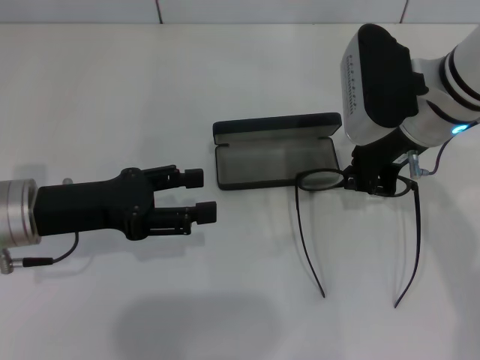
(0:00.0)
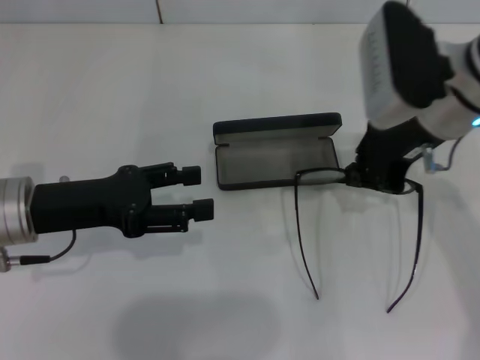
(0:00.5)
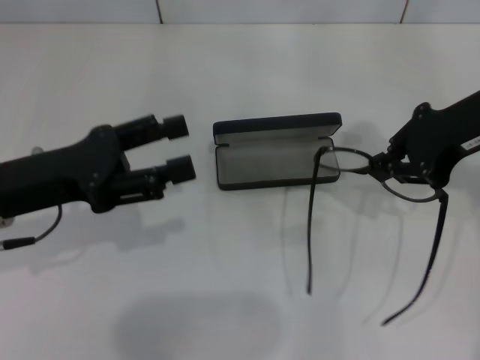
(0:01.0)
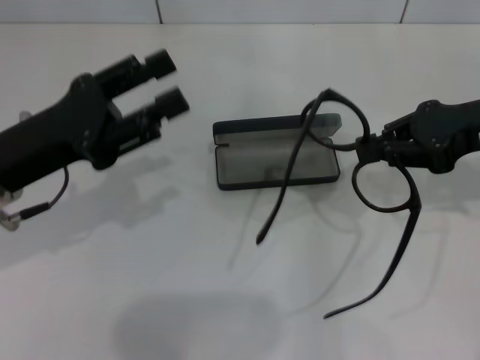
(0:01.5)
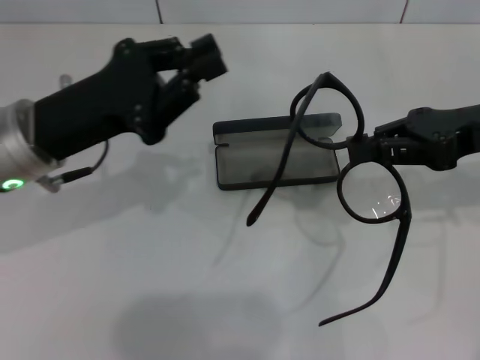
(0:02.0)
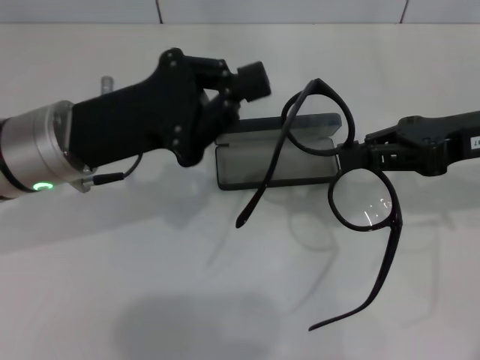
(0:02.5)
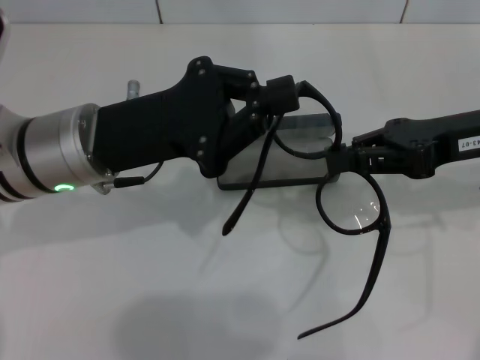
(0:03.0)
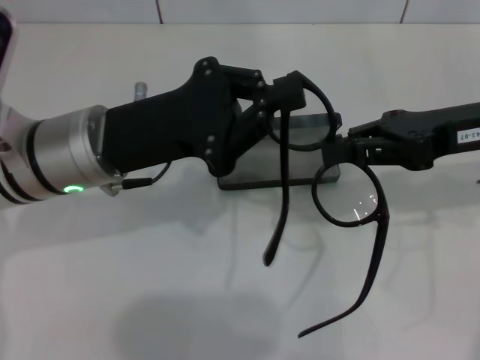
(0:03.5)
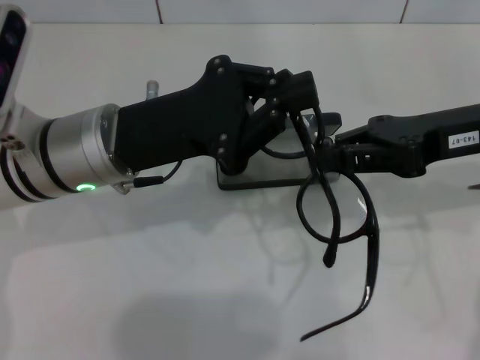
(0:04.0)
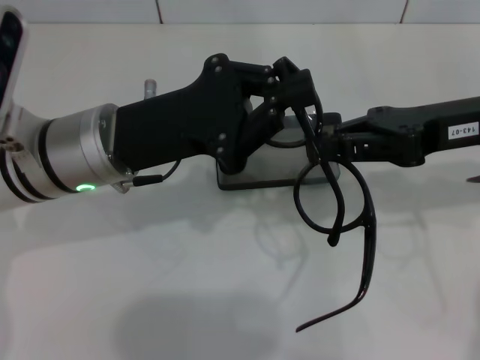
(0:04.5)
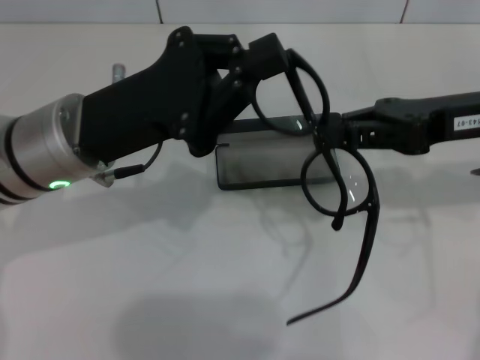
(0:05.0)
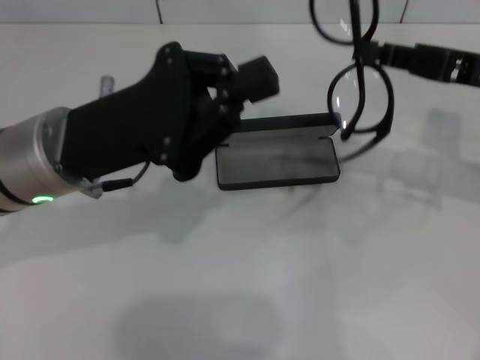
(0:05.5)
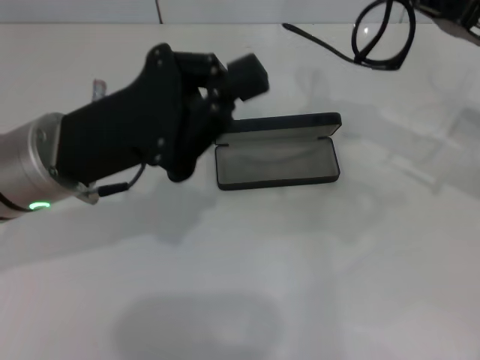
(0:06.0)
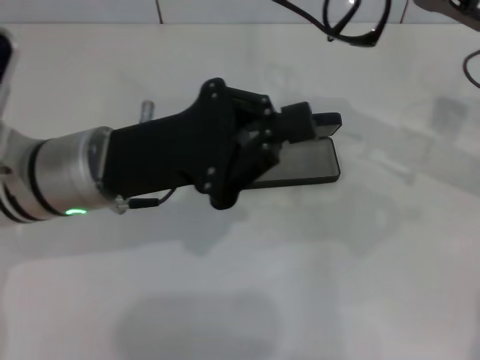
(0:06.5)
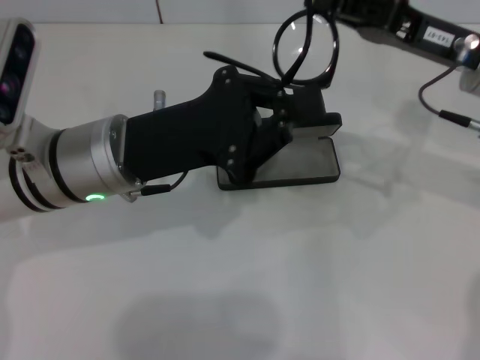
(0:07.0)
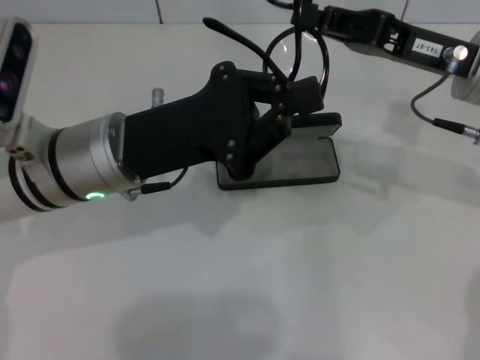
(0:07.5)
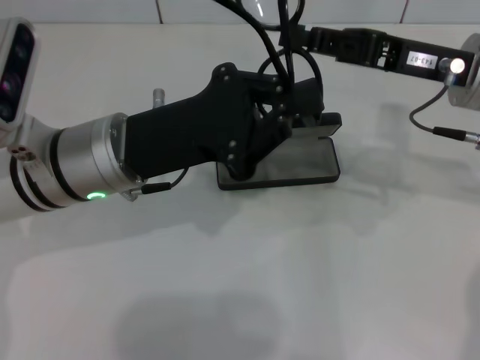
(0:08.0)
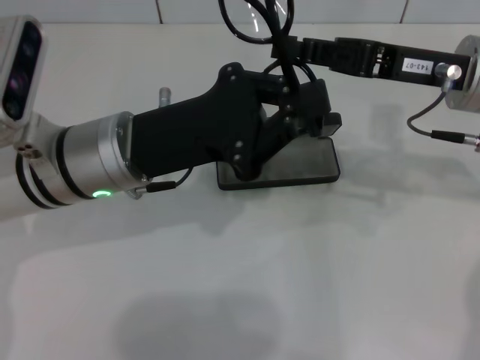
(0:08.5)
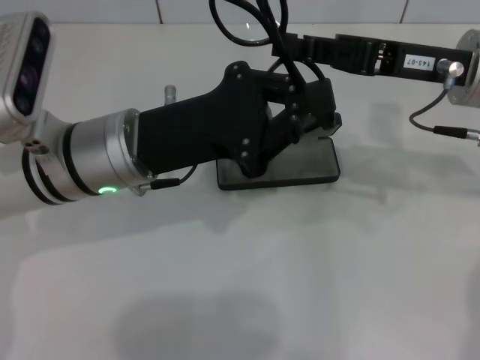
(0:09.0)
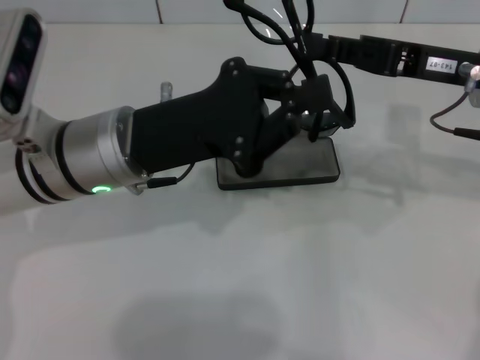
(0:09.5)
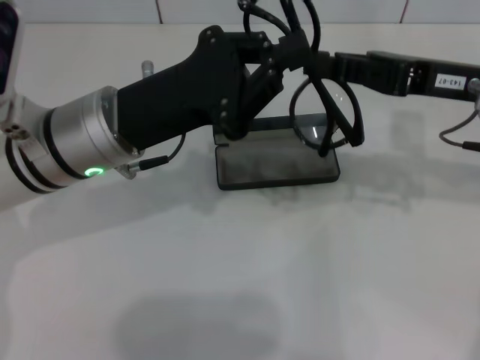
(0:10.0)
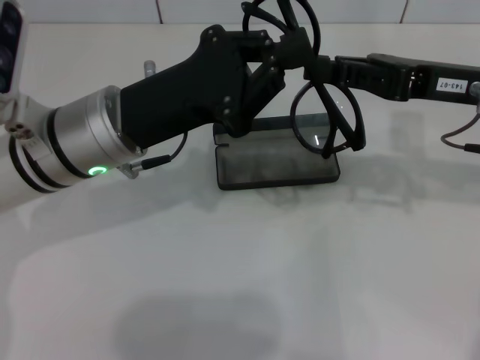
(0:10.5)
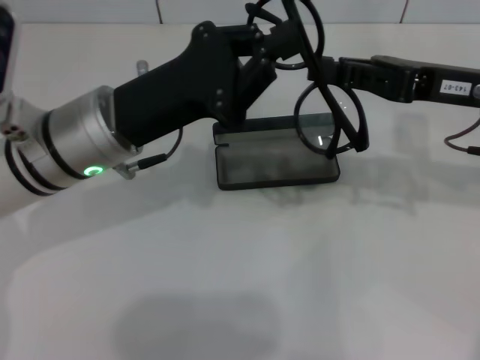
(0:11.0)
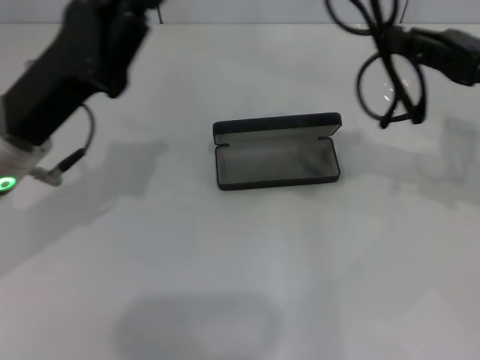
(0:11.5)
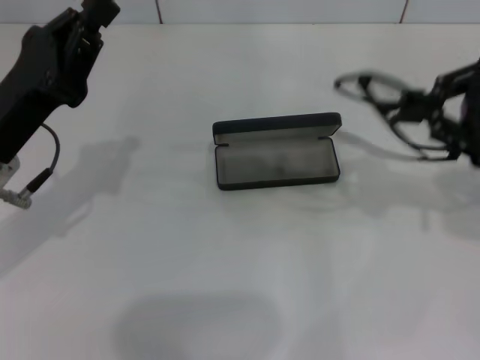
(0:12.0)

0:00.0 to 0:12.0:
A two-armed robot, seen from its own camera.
Step, 0:00.0 to 0:10.5: Fold the frame with your left hand.
0:00.0 to 0:02.0: The right gripper goes approximately 10 cm to the right, while the left gripper moves roughly 5 cm, and closes.
0:02.0 to 0:04.0: The left gripper moves to the right, about 5 cm, and closes its fingers.
0:04.0 to 0:06.0: The right gripper changes place by approximately 5 cm.
0:06.0 to 0:08.0: The right gripper travels to the left by some 5 cm.
0:10.0 to 0:12.0: The right gripper heads to the right, covering roughly 10 cm; the left gripper travels to the left by about 10 cm.

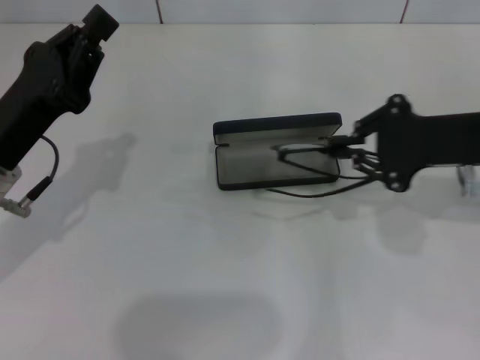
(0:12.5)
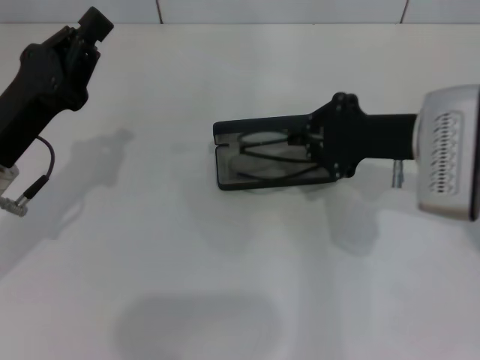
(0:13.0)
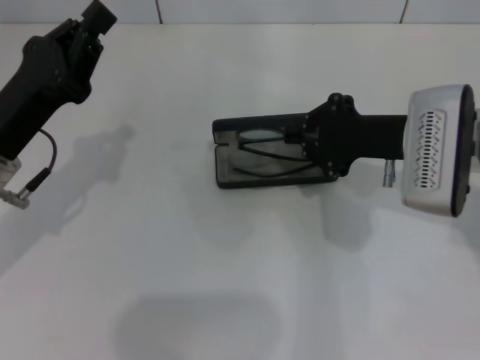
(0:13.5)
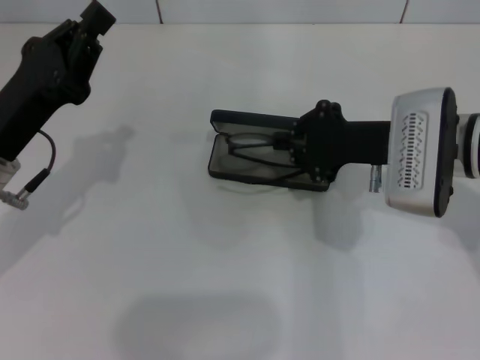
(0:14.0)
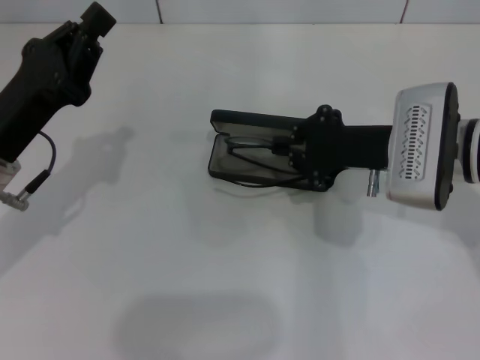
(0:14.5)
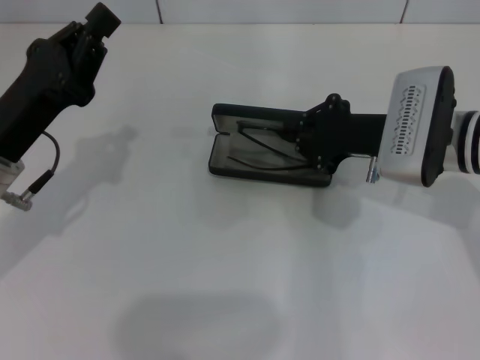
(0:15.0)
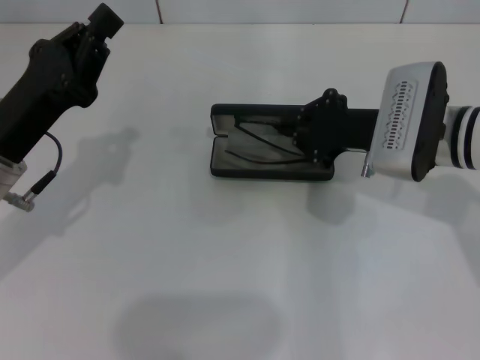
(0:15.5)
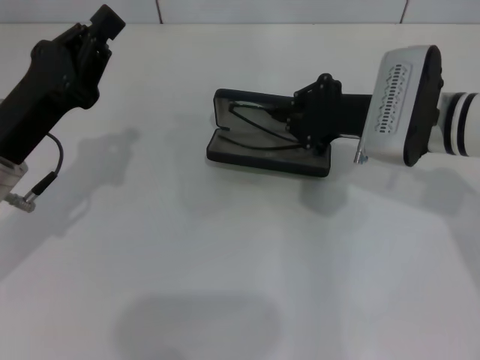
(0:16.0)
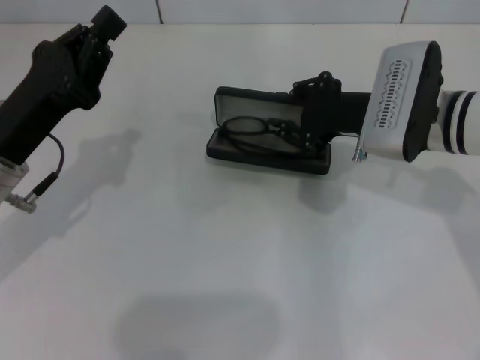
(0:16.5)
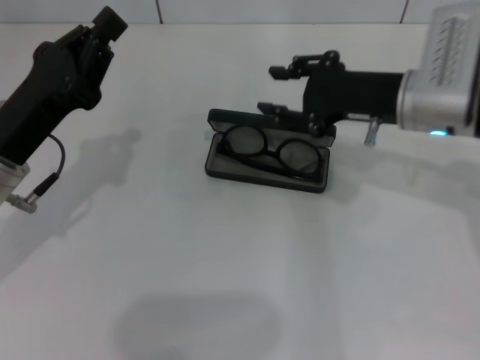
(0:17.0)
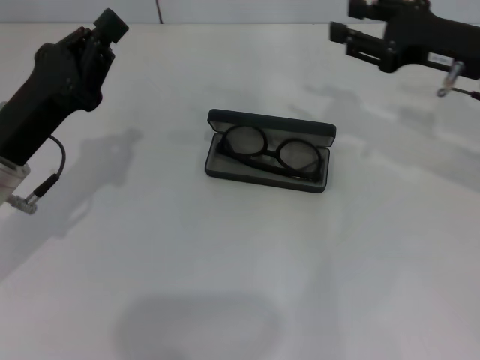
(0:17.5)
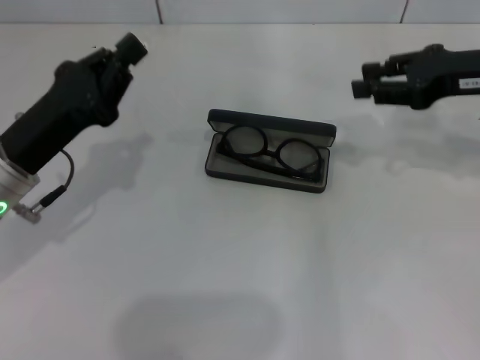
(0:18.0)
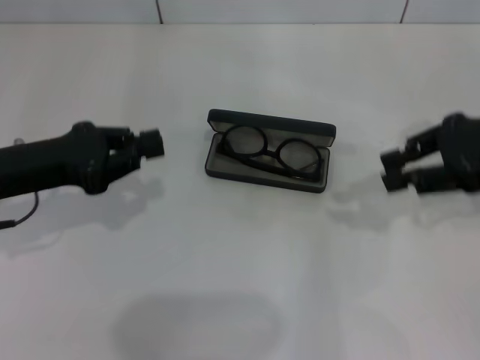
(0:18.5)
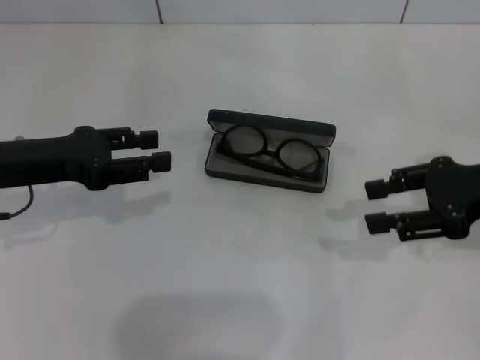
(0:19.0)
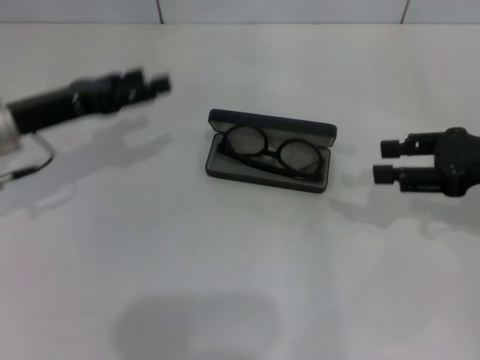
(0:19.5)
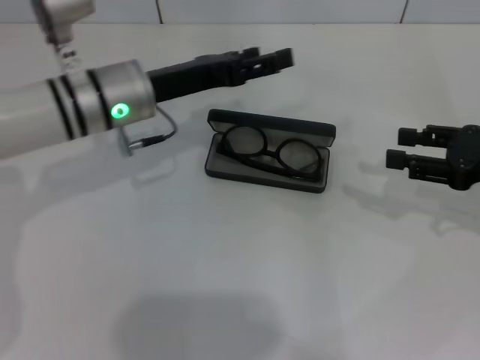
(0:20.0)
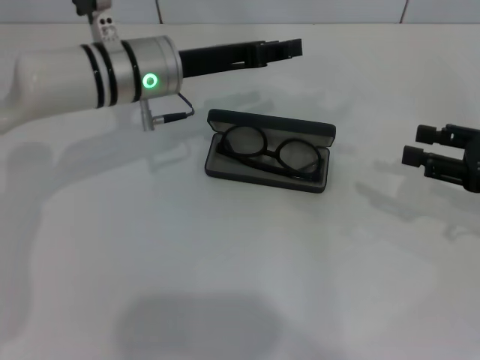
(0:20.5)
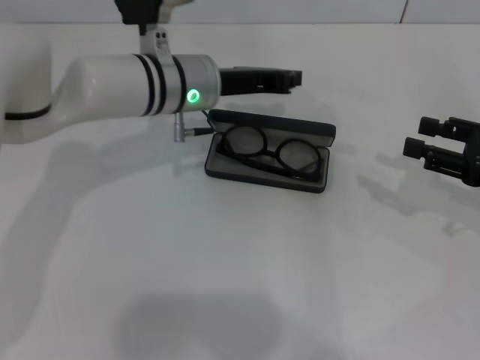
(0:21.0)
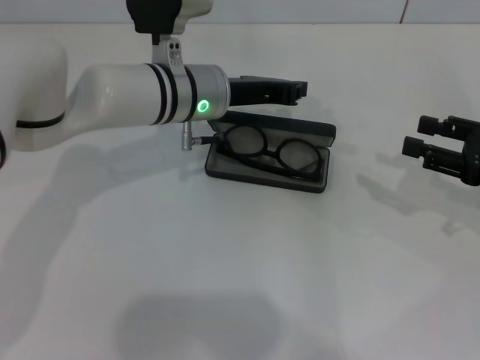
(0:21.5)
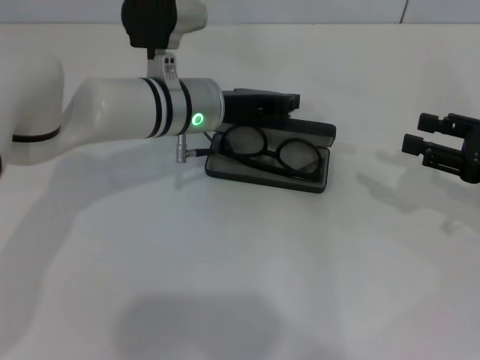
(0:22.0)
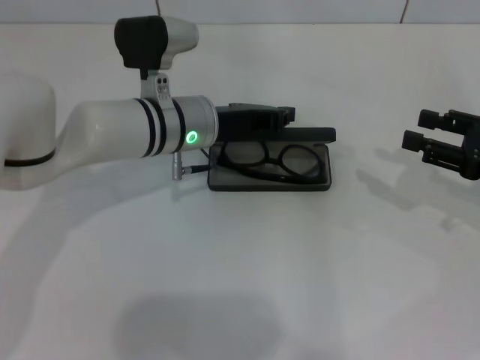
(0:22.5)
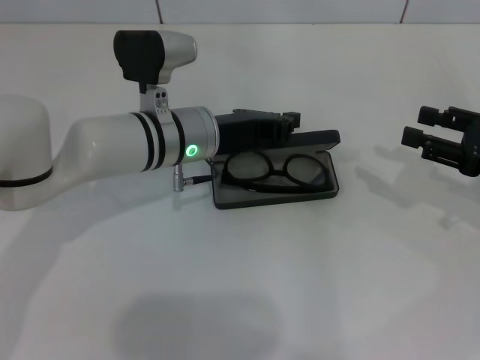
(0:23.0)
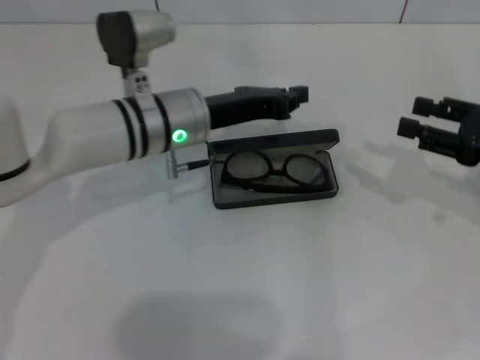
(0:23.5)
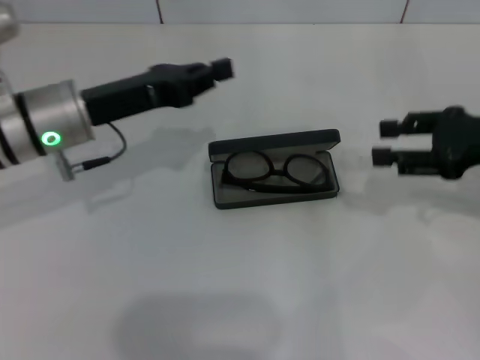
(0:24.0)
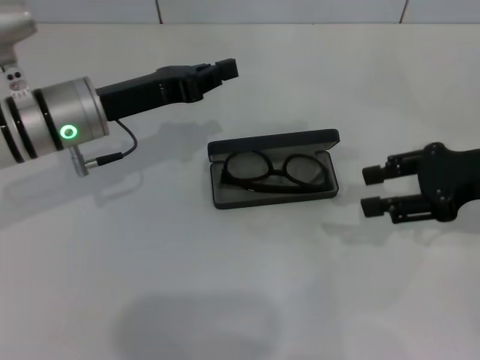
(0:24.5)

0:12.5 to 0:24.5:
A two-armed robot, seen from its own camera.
Step, 0:12.5 to 0:16.5: Put the glasses into the case with your right hand.
0:12.5 to 0:14.5: The right gripper travels to the left and downward by approximately 10 cm.
0:14.5 to 0:16.5: The grippers stay close to where they were, moving slightly.
0:16.5 to 0:18.5: The right gripper goes about 15 cm to the right and upward.
0:18.5 to 0:20.5: The right gripper shifts roughly 10 cm downward, while the left gripper shifts approximately 20 cm to the right and forward, and opens.
0:20.5 to 0:22.5: The left gripper moves about 5 cm, and closes.
0:22.5 to 0:24.5: The right gripper moves roughly 5 cm, while the left gripper moves to the left, approximately 10 cm.

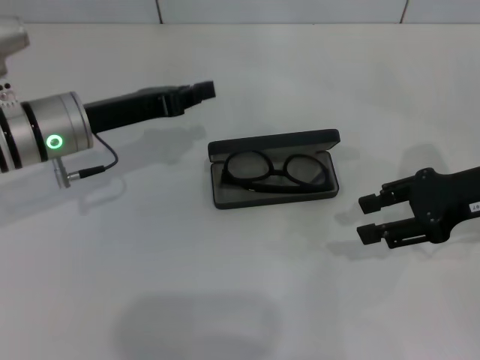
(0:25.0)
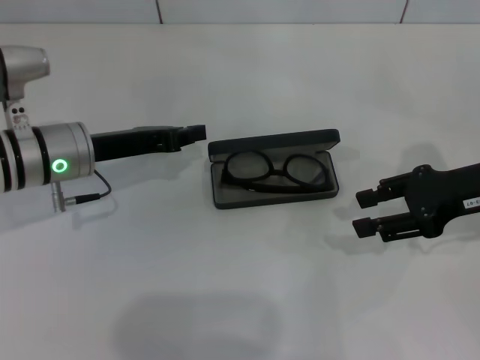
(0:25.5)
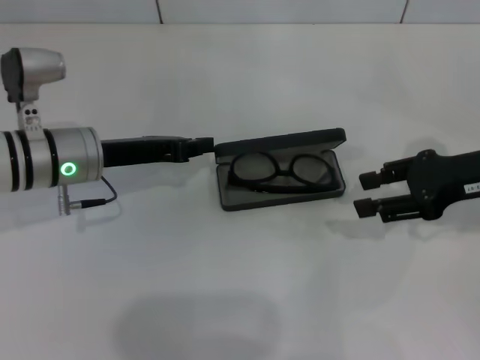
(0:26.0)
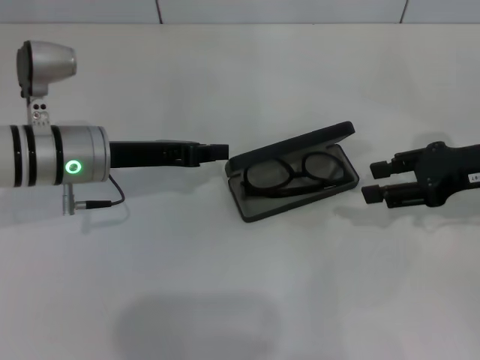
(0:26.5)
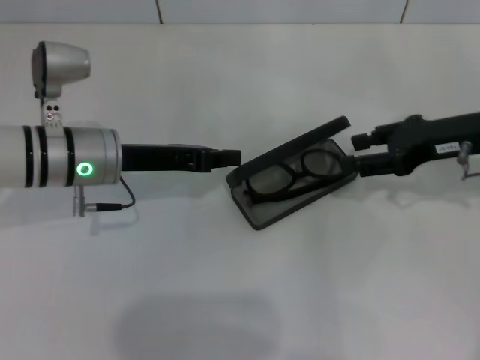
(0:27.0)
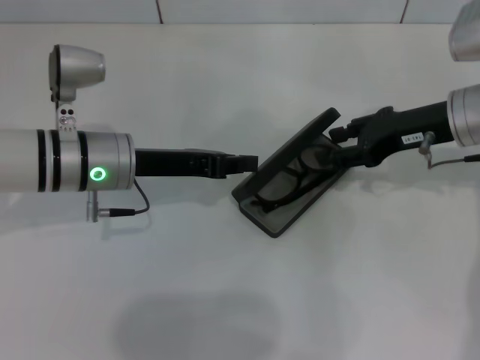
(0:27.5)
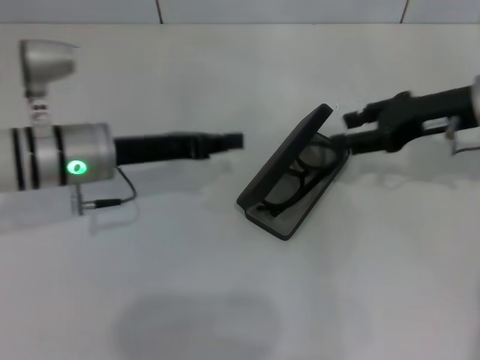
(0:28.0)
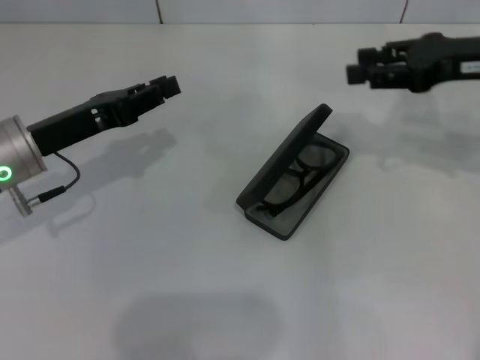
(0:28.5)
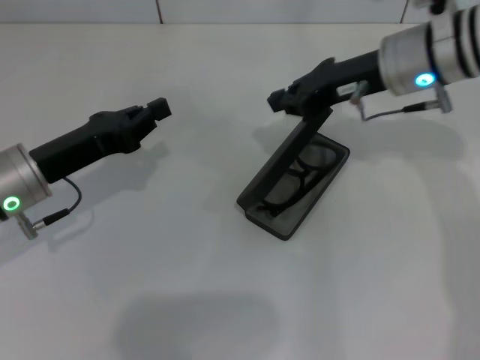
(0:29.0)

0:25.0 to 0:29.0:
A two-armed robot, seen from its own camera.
0:27.0 to 0:29.0: The left gripper travels to the left and backward by roughly 10 cm. Meanwhile the right gripper moves to the left, some 10 cm, and closes up.
